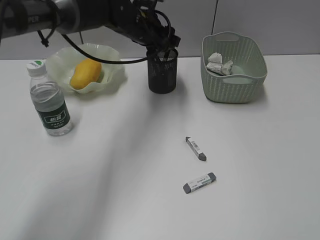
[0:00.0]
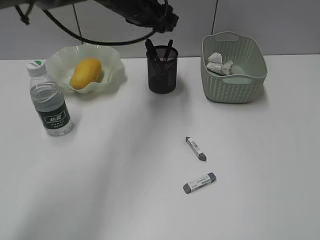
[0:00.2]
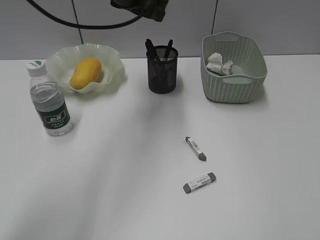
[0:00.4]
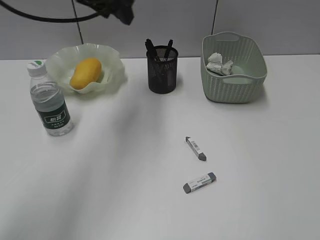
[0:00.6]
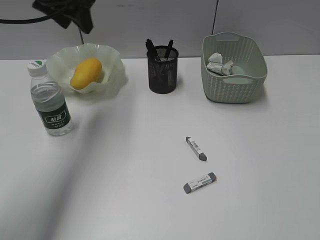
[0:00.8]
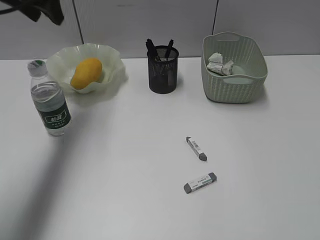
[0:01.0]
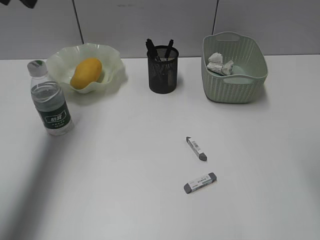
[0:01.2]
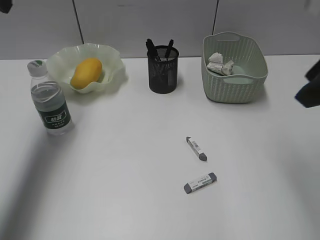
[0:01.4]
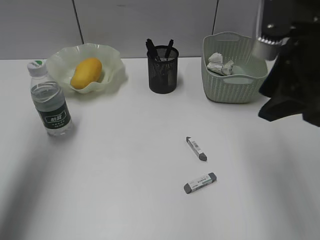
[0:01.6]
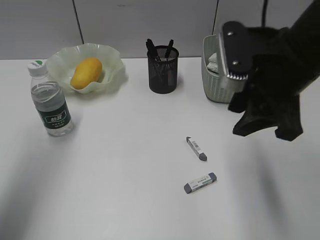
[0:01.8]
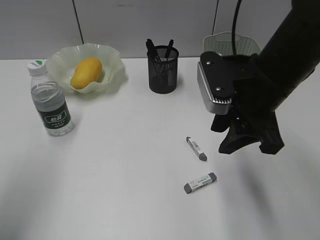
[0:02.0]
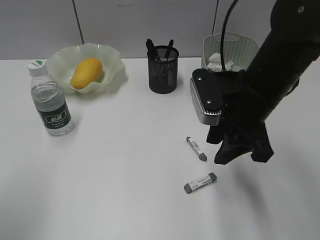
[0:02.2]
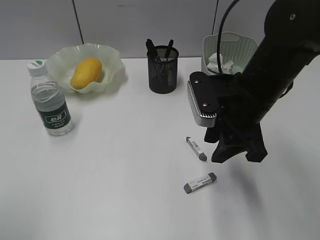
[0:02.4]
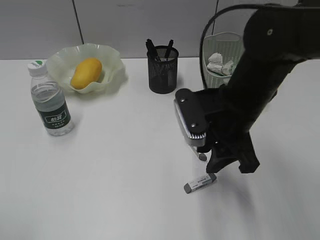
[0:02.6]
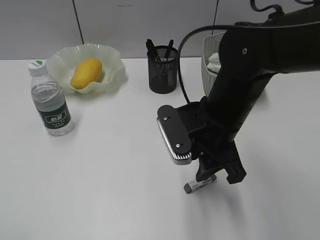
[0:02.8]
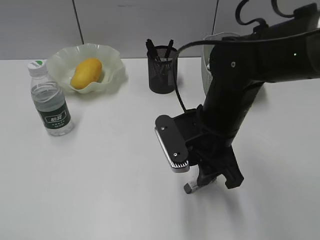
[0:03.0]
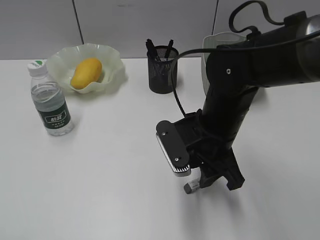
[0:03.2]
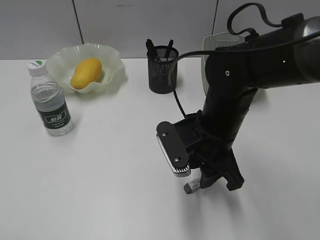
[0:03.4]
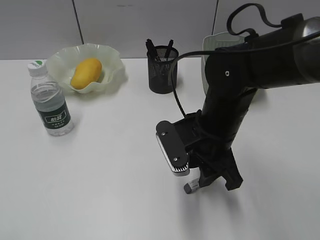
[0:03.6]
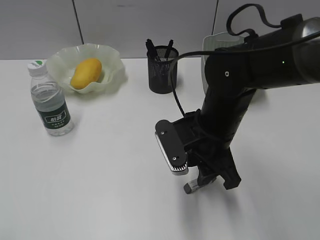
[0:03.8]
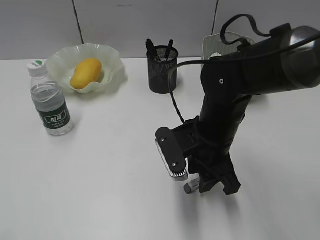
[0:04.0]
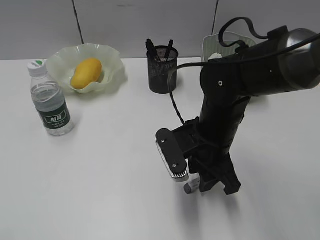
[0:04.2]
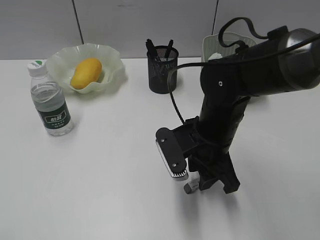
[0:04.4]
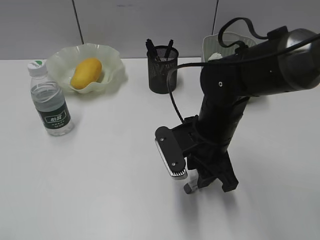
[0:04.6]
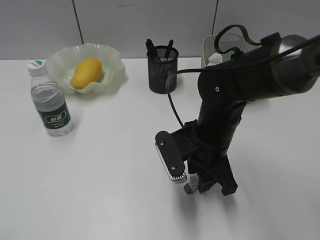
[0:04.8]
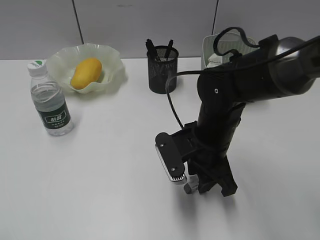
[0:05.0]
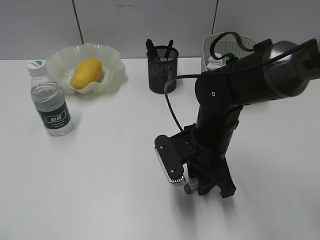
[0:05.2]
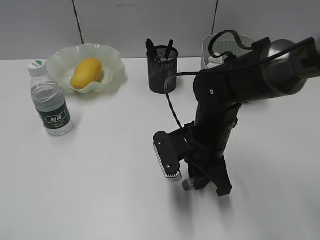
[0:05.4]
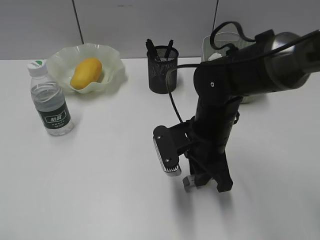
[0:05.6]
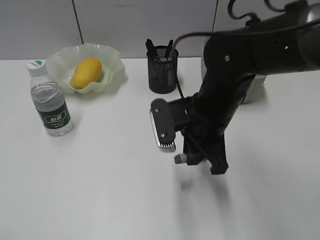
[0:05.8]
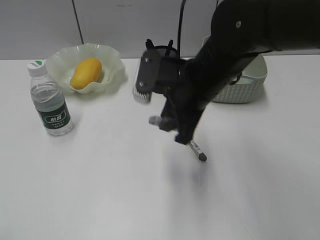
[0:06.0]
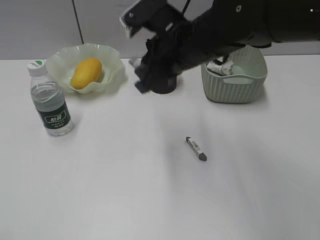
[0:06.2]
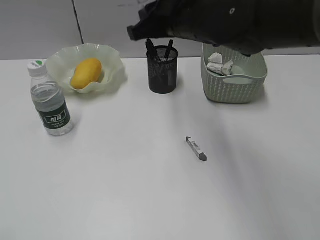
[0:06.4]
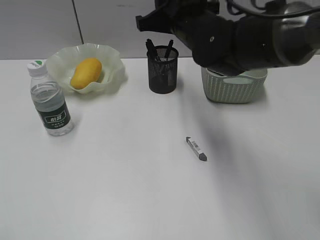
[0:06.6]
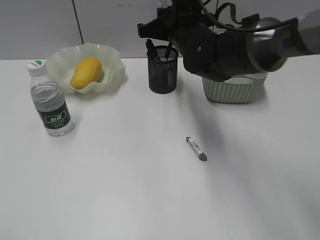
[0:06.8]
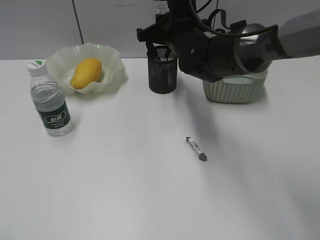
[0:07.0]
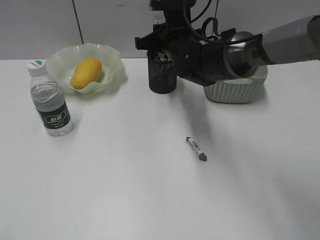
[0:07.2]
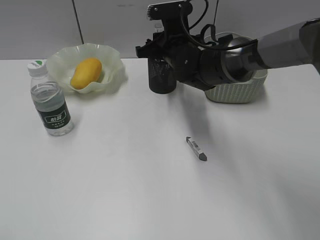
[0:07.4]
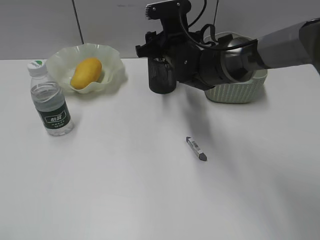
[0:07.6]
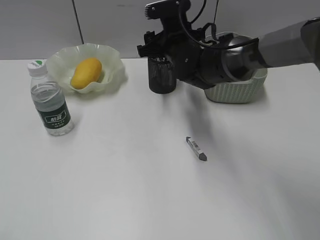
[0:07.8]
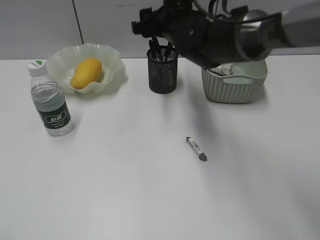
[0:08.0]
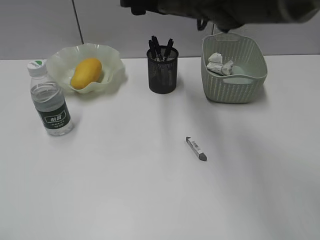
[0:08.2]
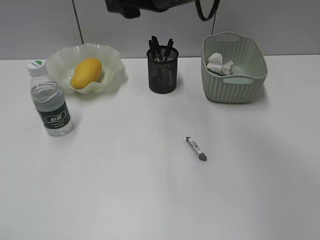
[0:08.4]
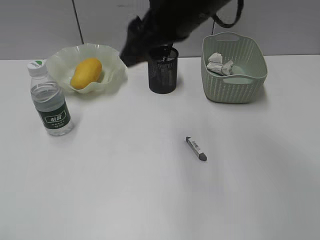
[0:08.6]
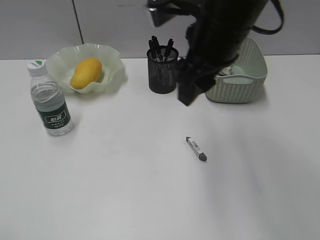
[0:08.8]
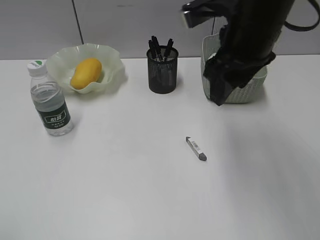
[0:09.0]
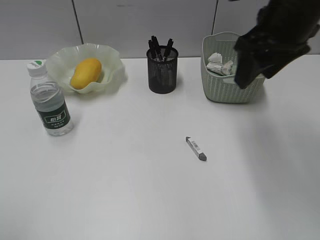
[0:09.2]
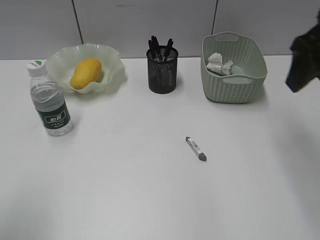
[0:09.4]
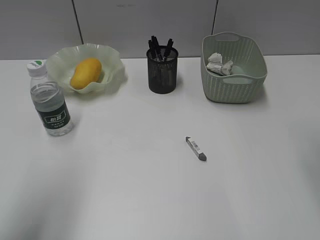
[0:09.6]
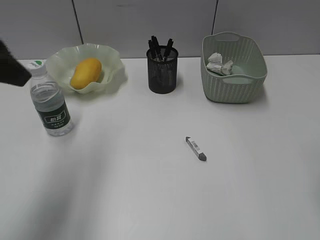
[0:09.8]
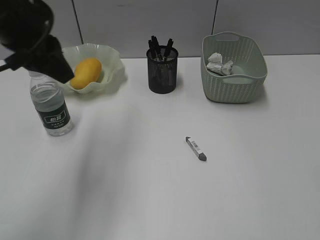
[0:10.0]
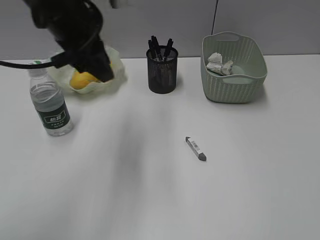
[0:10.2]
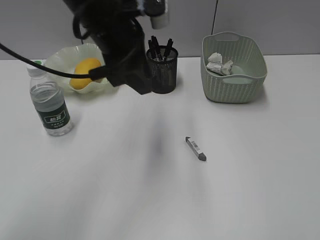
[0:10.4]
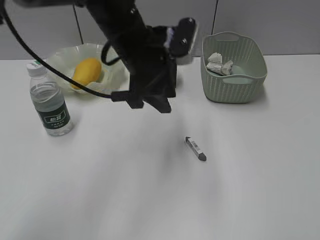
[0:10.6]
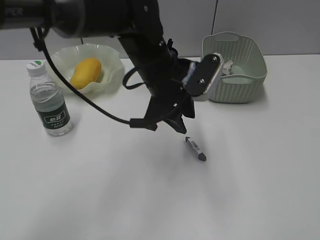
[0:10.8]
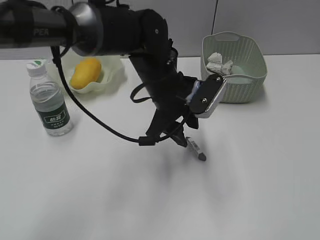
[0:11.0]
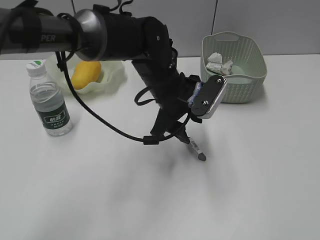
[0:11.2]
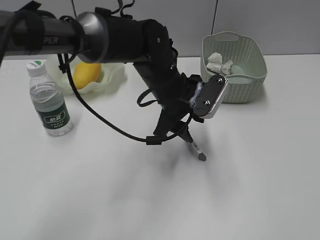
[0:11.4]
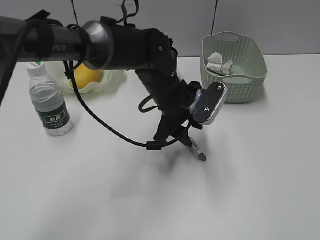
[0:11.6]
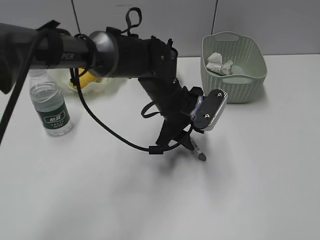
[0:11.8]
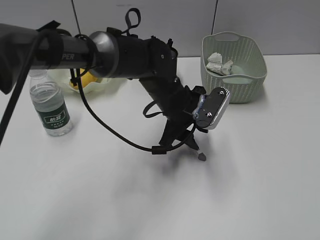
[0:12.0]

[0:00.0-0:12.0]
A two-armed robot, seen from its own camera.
Step, 0:00.2 to 0:05.4: Grasp the eraser with right gripper.
Step, 0:05.6 to 0:08.0: Place the eraser in pen holder with right gripper.
0:00.0 to 0:01.6: The right gripper shifts roughly 25 cm forward and to the left, while the left gripper travels to the left, backward and upward by about 35 cm.
0:01.6 to 0:03.0: The left gripper goes approximately 30 cm backward; the right gripper travels downward and to the left by about 15 cm.
0:03.0 to 0:04.4: The grippers move only a little.
0:04.4 to 0:06.0: The right gripper moves upward, approximately 10 cm, and closes.
0:06.0 to 0:07.6: The right gripper heads forward, covering roughly 15 cm, and opens.
0:07.6 to 0:09.0: The right gripper is displaced upward, backward and to the right by roughly 20 cm.
0:09.0 to 0:10.4: The left gripper shifts some 40 cm forward and to the right, while the right gripper heads backward and to the right, covering about 30 cm.
0:10.4 to 0:12.0: The left gripper moves downward and to the right, approximately 20 cm.

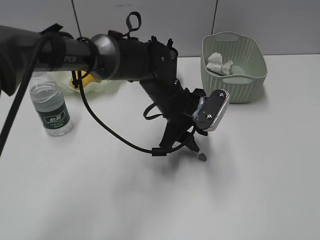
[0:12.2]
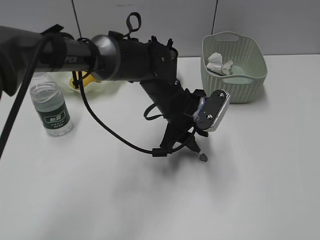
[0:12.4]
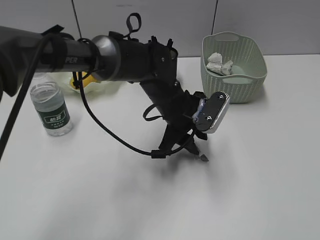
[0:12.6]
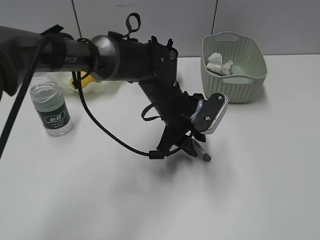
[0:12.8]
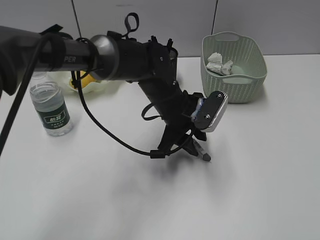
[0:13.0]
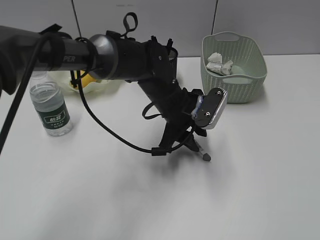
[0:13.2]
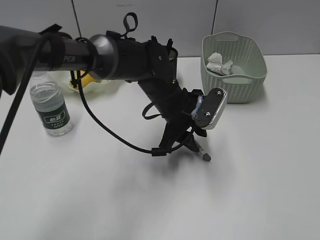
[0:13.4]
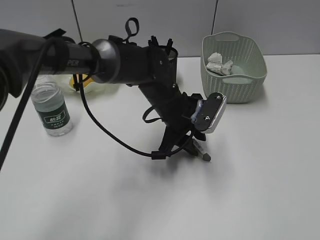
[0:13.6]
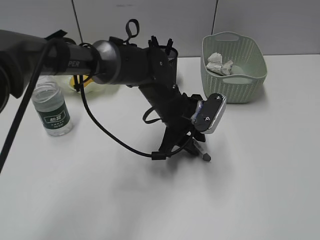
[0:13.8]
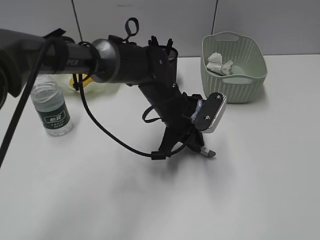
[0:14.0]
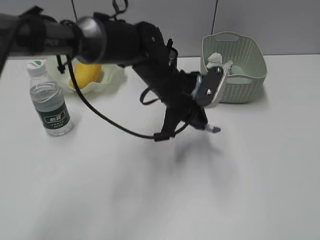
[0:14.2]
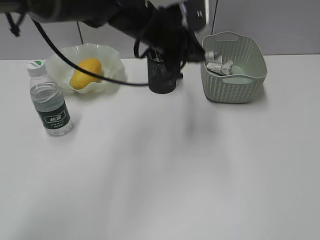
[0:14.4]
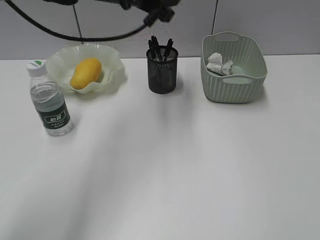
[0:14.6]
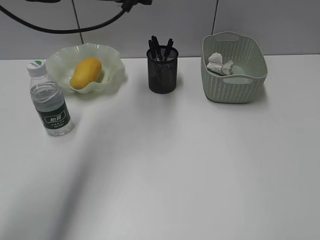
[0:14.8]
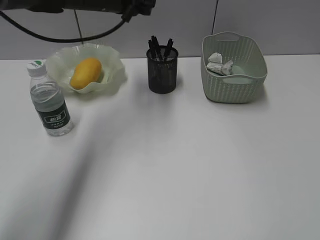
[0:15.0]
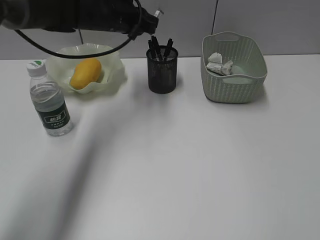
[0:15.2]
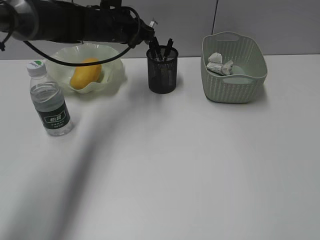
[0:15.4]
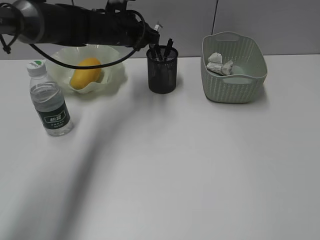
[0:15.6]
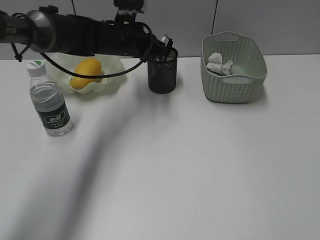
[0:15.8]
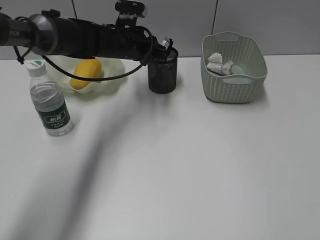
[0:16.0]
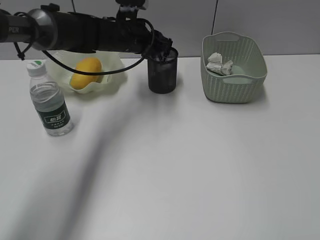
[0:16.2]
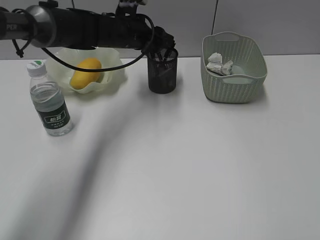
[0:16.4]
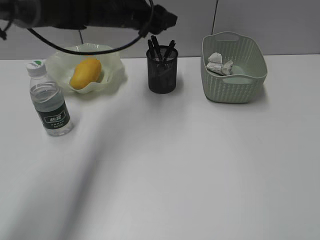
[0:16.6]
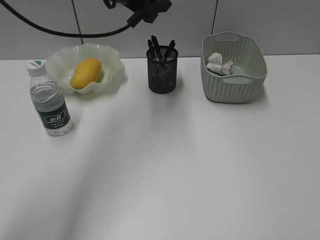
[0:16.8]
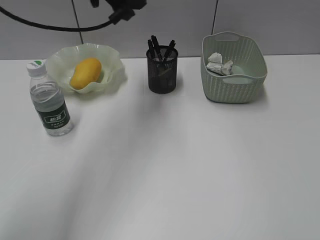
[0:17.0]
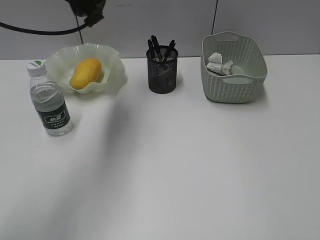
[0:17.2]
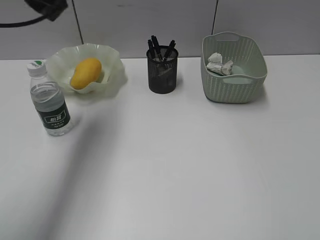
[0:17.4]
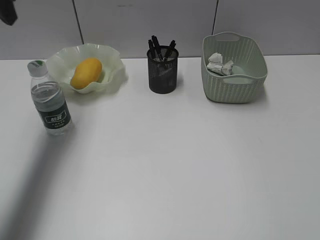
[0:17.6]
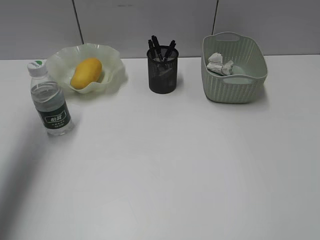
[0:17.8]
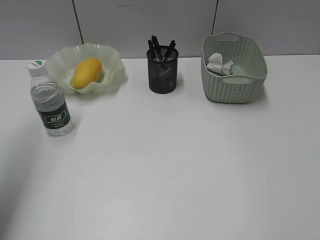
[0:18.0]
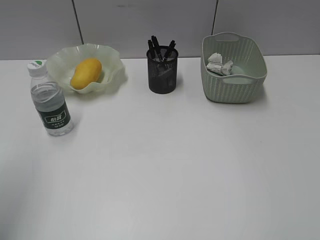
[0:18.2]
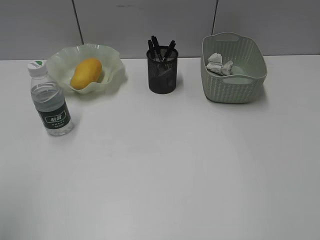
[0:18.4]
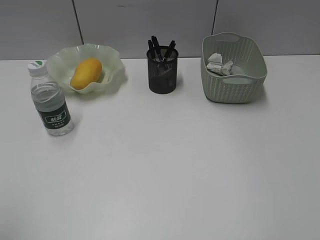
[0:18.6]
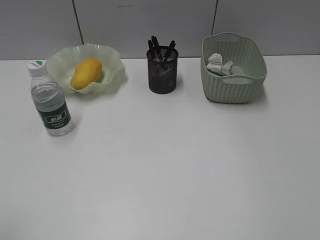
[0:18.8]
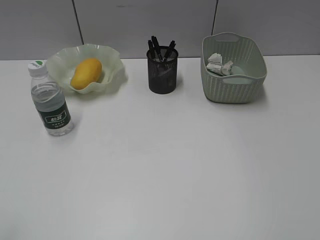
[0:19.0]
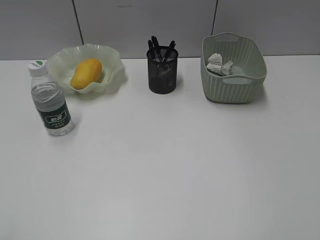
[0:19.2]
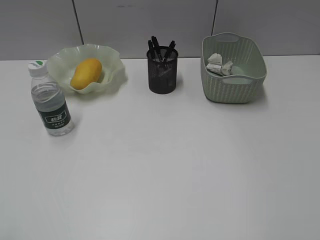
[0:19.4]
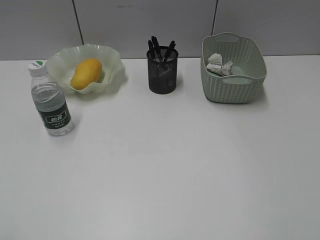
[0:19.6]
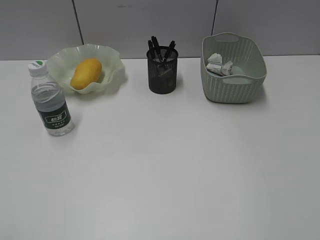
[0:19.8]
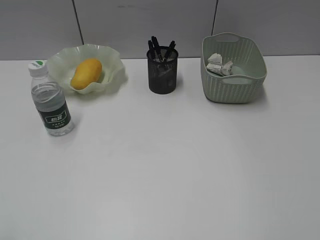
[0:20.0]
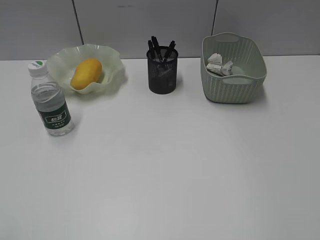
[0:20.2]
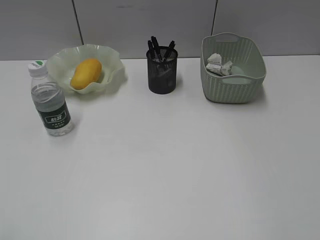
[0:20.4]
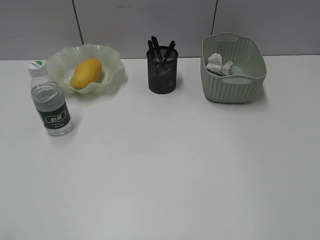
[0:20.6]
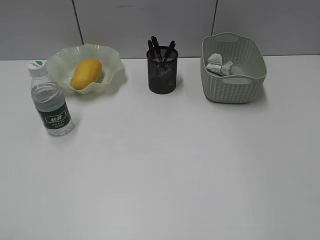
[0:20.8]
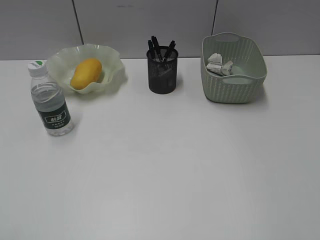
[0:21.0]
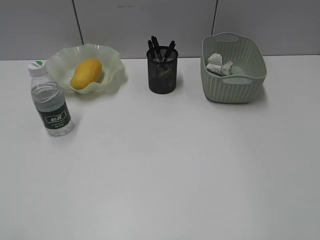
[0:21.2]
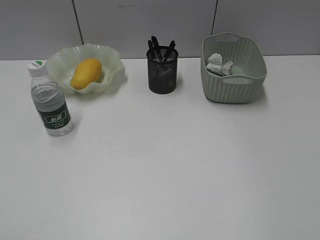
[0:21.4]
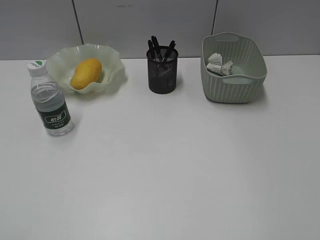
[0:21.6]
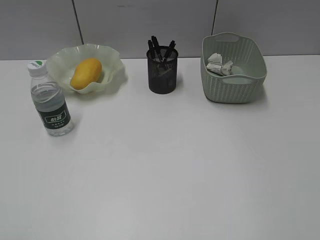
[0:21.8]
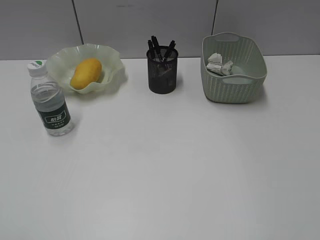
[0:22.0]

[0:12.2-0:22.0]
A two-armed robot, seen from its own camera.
Step, 0:14.0 to 0:16.4: Place the eraser in pen holder with left gripper.
0:12.2 to 0:13.6: Both grippers stay about where they are.
0:13.6 to 0:15.0: The left gripper goes some 25 cm upward, to the left and forward, and closes.
0:15.0 to 0:16.4: The left gripper goes some 5 cm downward, and opens up.
0:16.4 to 0:17.8: The left gripper goes about 35 cm to the left, upward and backward.
0:17.8 to 0:19.2: The left gripper is displaced backward by approximately 35 cm.
